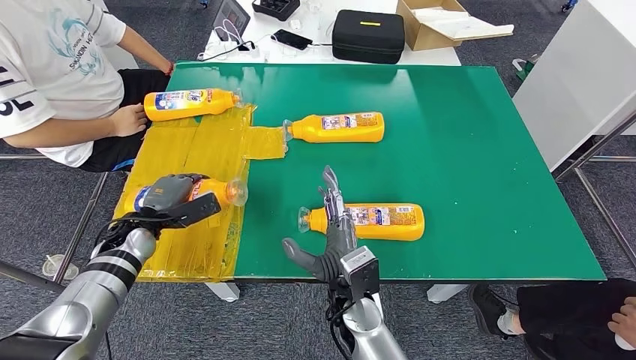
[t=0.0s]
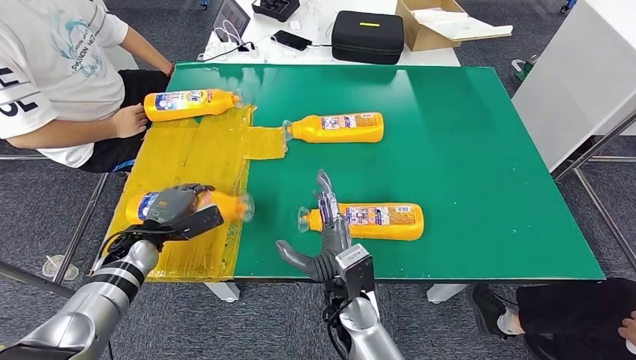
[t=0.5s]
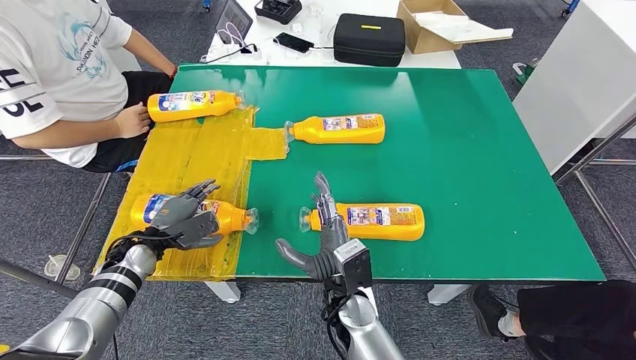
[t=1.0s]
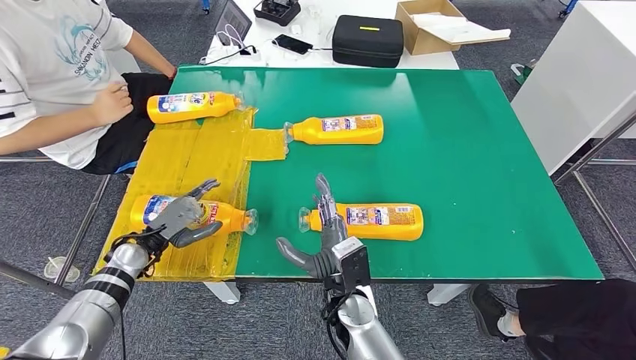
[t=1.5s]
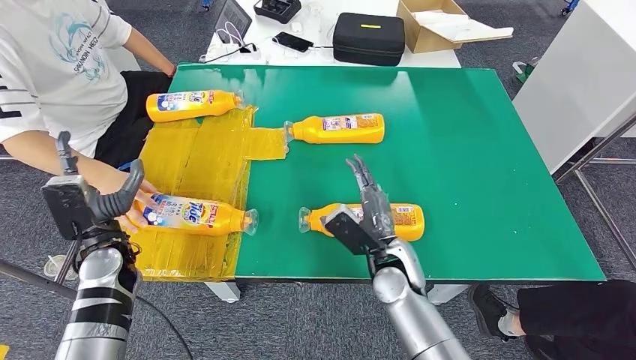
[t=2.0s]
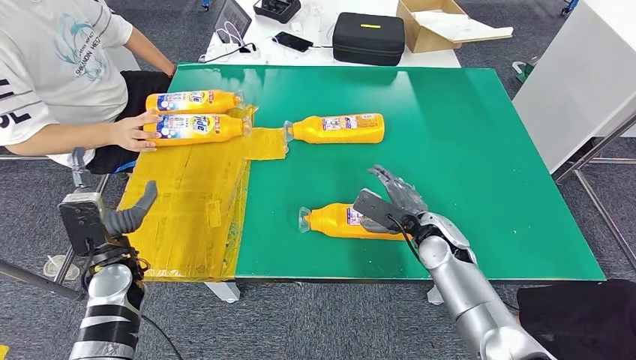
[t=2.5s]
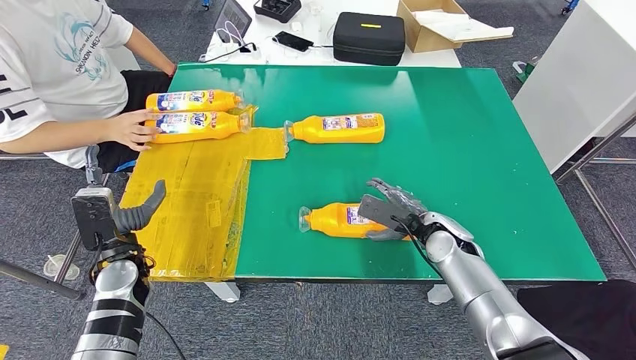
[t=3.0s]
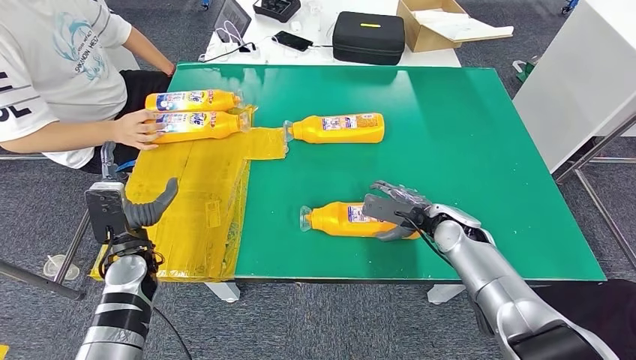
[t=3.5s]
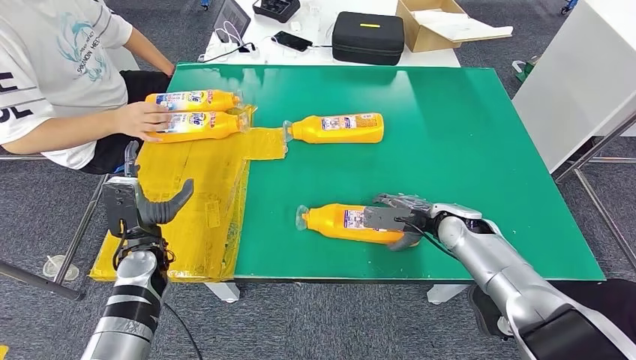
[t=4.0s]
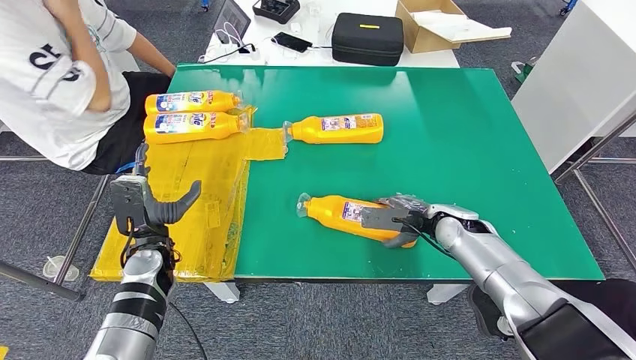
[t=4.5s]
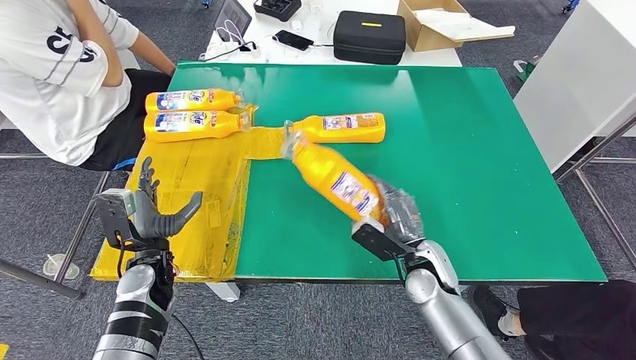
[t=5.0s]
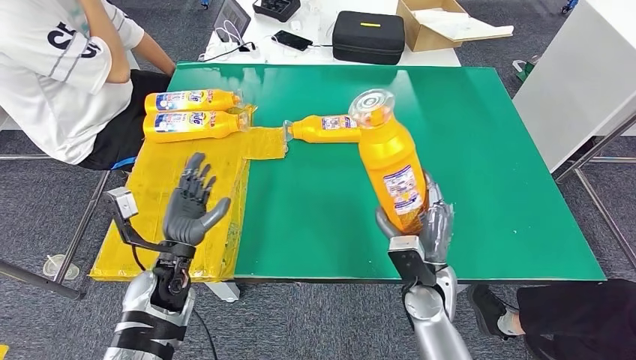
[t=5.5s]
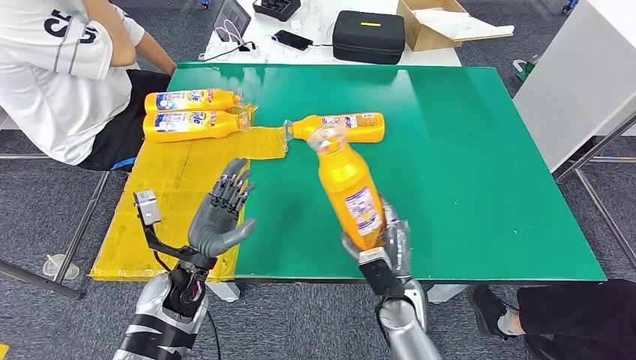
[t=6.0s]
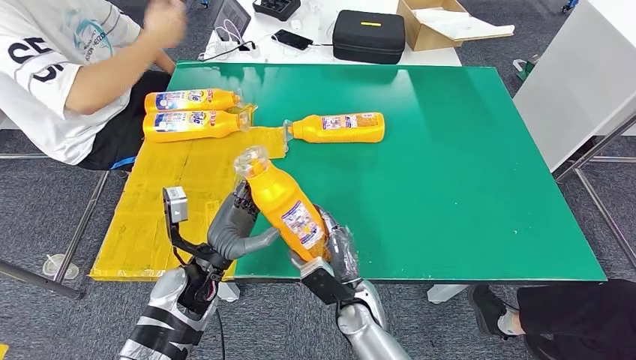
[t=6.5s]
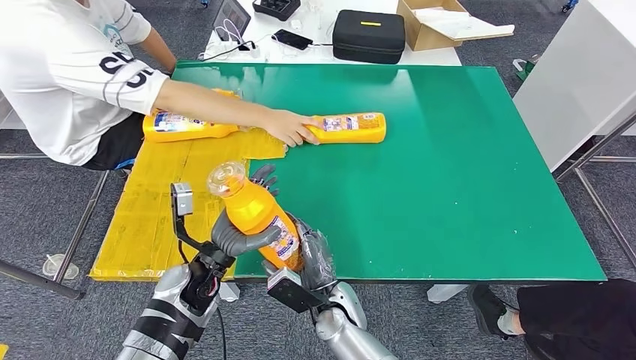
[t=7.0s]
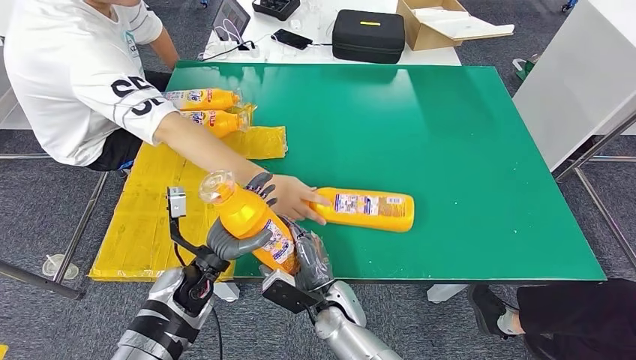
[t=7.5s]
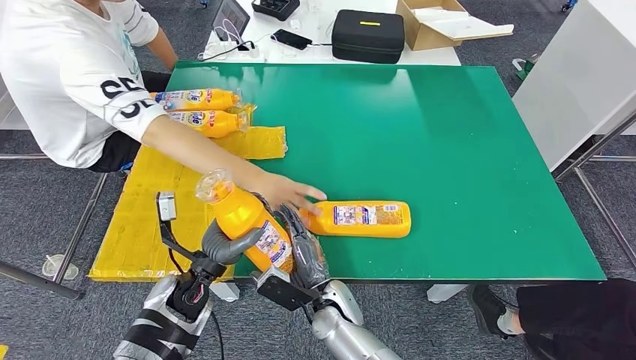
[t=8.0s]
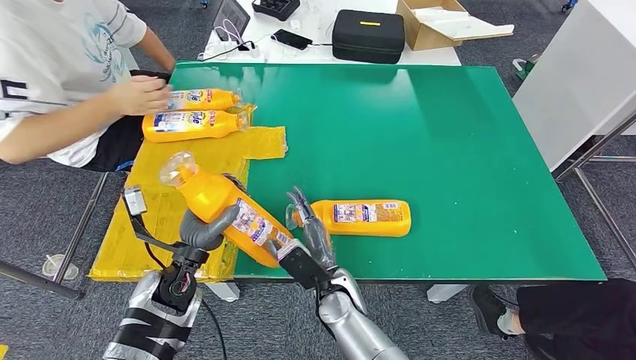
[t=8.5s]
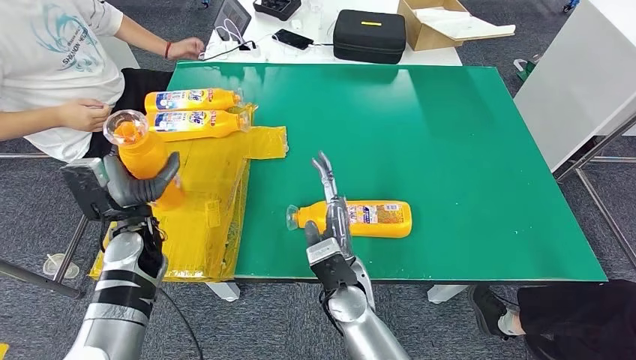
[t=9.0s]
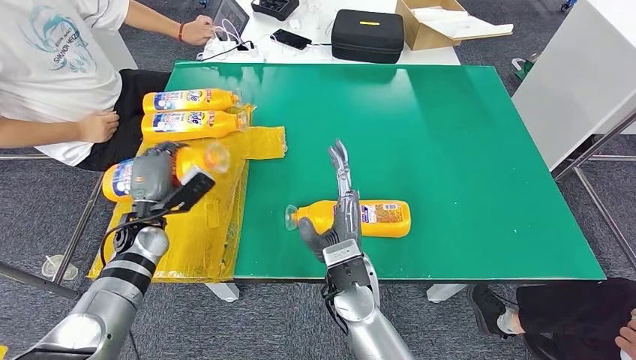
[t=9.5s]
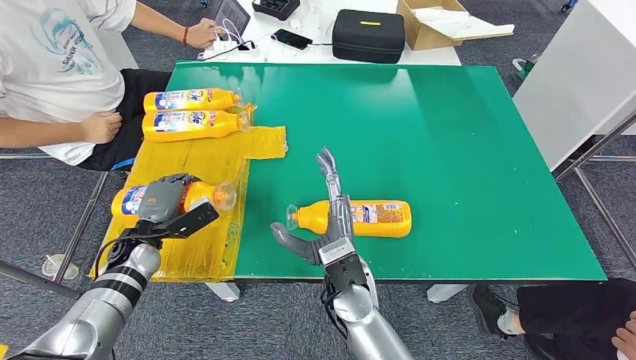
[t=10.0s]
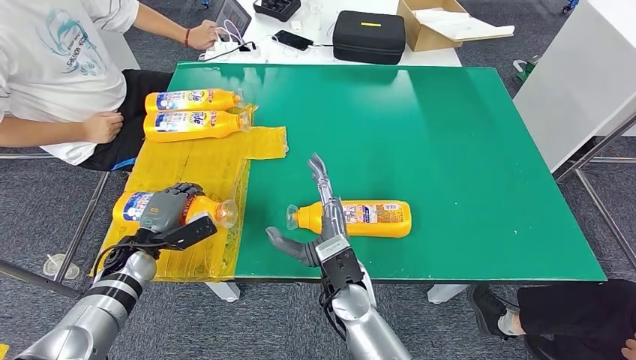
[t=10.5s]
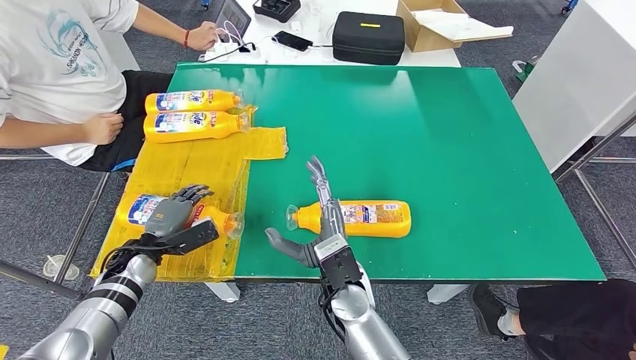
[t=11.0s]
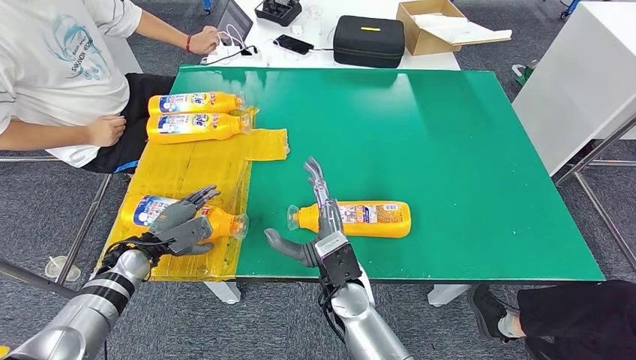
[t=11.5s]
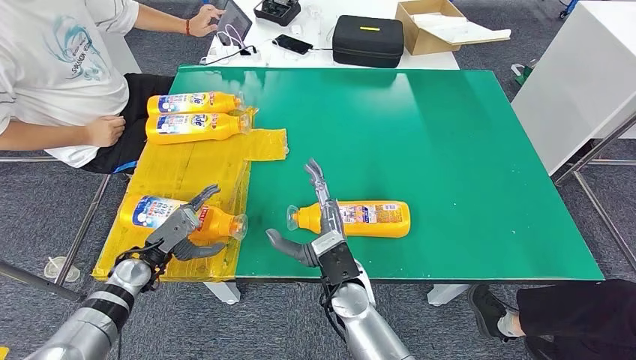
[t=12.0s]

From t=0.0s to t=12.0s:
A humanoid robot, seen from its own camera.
Step, from t=1.0s to t=6.0s: Pick up the fast-moving consumer goods bottle from the table.
Step, from t=6.5s to t=10.5s: Flip the fast-moving consumer goods bottle to the front side.

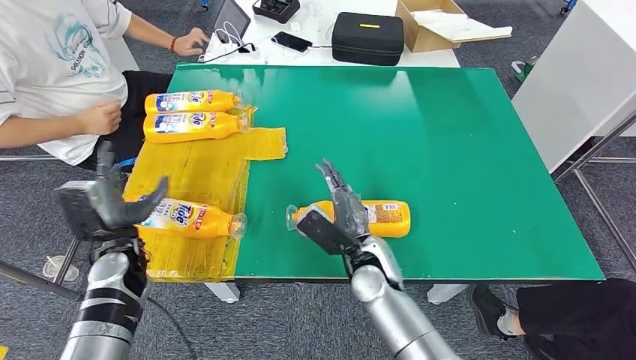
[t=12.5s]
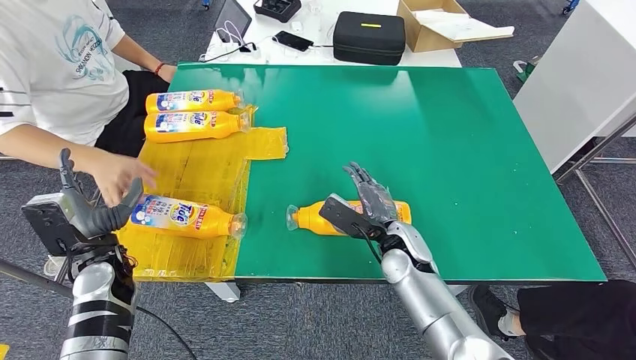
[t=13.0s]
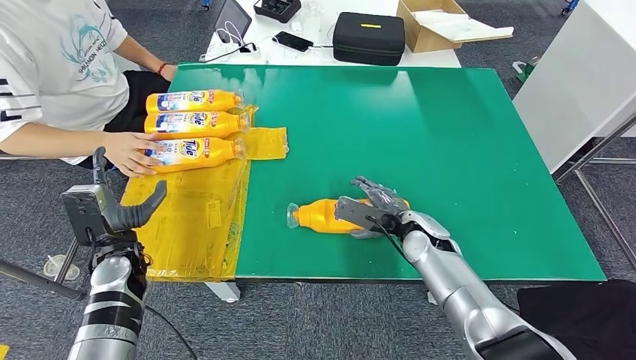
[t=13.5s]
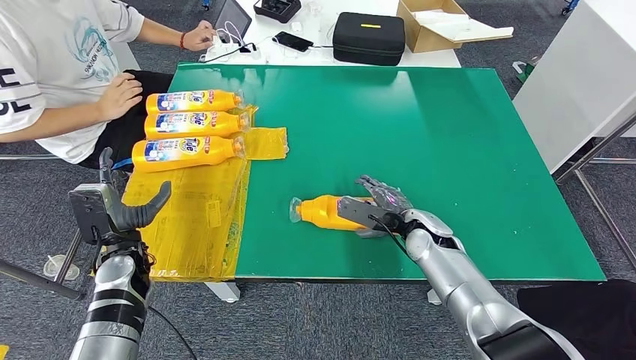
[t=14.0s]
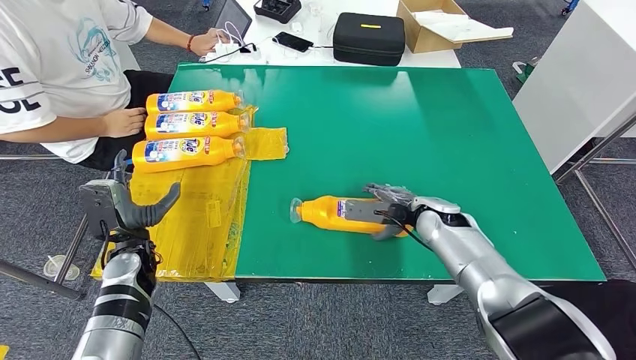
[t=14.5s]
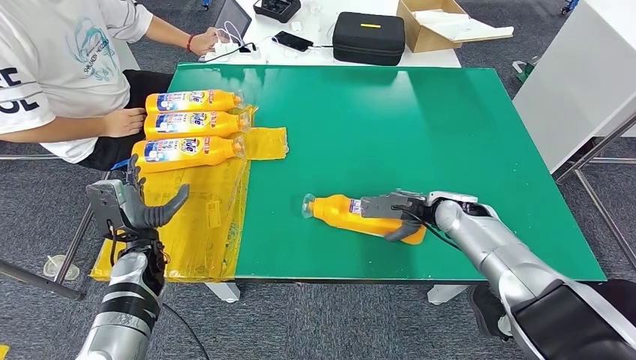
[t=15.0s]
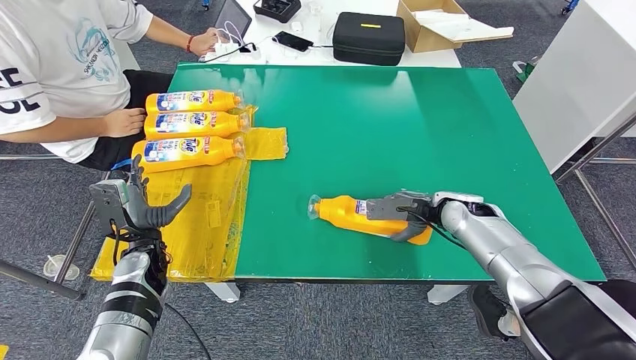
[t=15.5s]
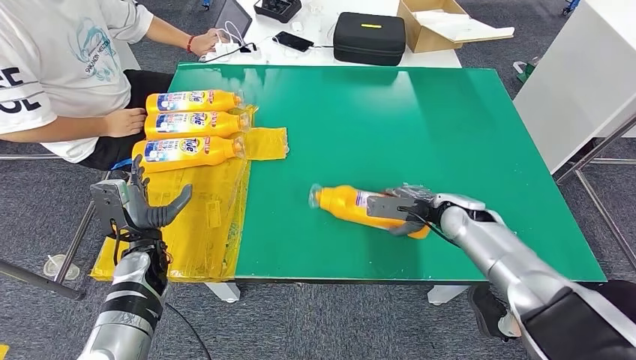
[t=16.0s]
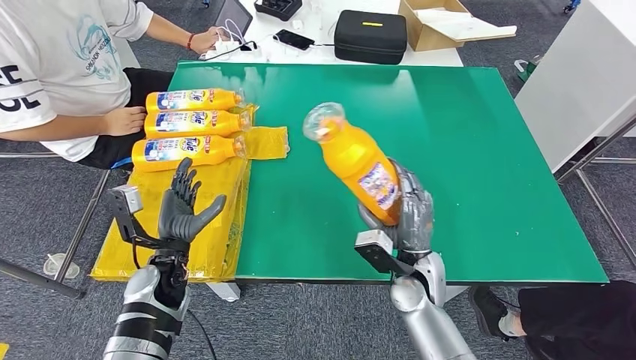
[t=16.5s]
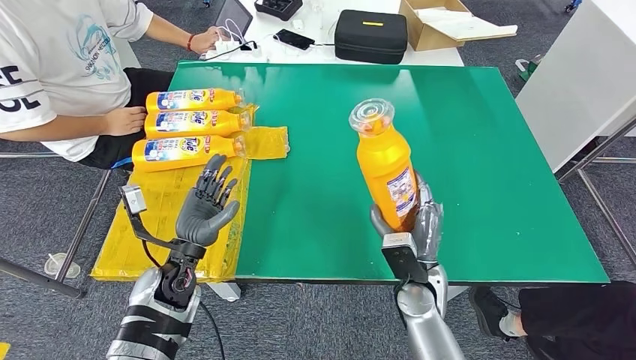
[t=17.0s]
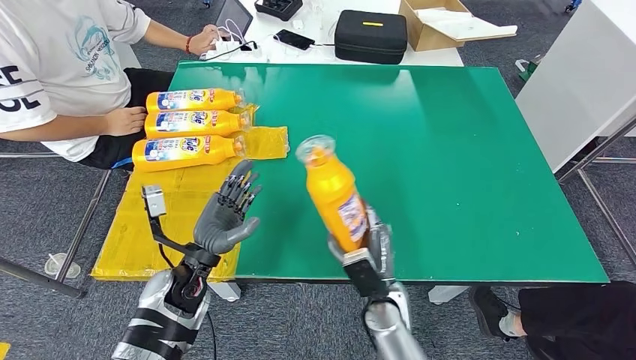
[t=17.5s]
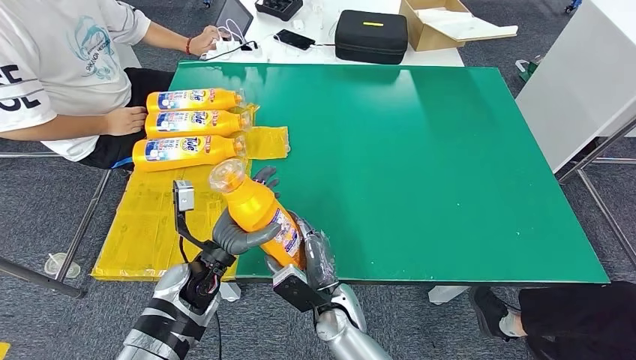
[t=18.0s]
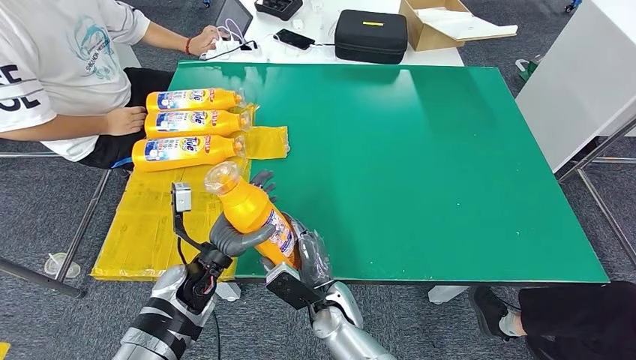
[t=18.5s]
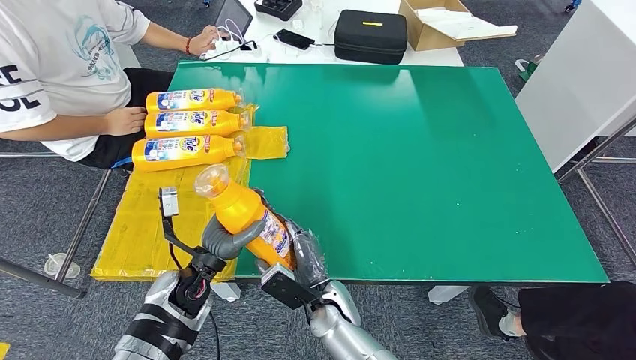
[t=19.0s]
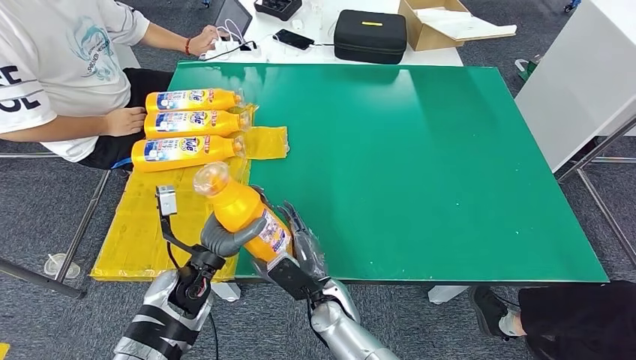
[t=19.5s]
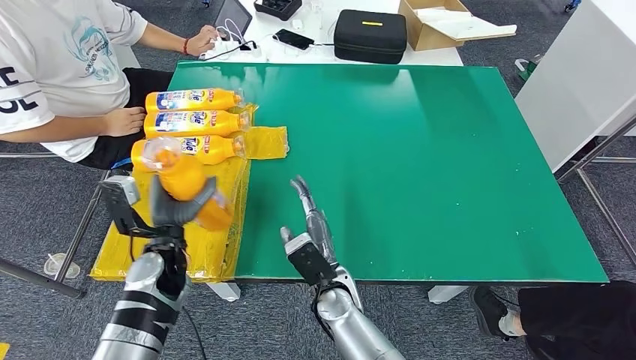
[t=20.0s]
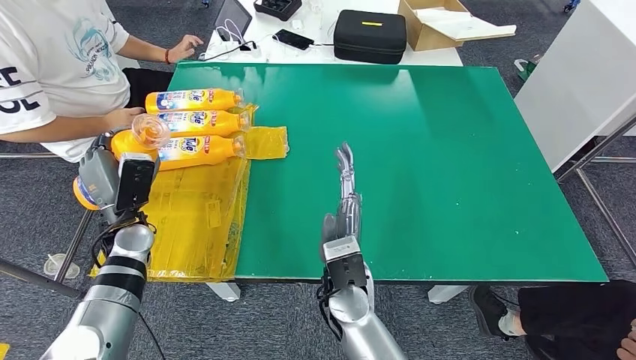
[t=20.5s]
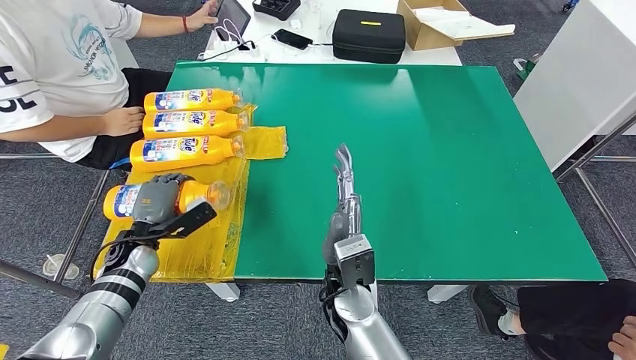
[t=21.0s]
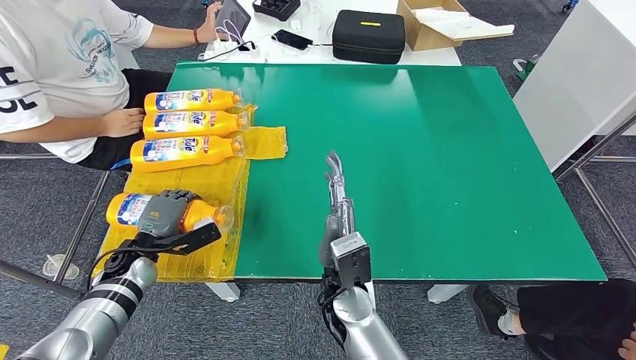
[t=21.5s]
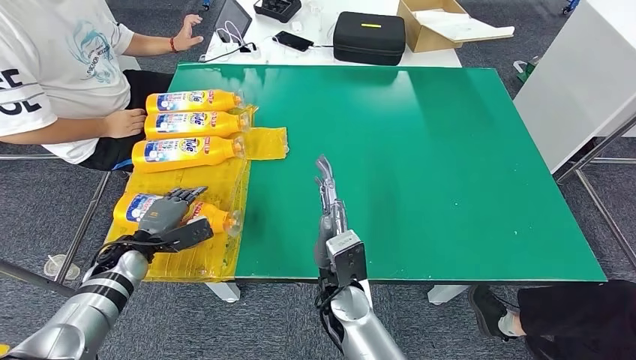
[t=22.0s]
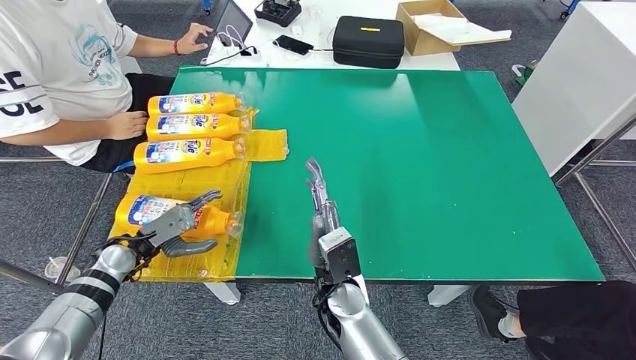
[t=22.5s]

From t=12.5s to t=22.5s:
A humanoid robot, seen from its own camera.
Step, from t=12.5s to t=17.5s: Pick up the fast-moving consumer goods bottle from the table.
Step, from t=18.0s to t=22.5s: Flip the fast-moving consumer goods bottle to the front side.
From t=16.5s to t=18.5s: The right hand goes about 15 cm to the left and downward. Meanwhile the left hand moves to the right, roughly 5 cm.
